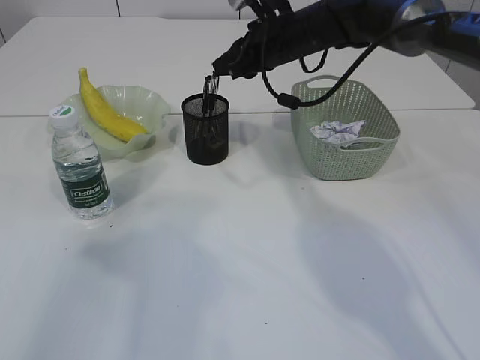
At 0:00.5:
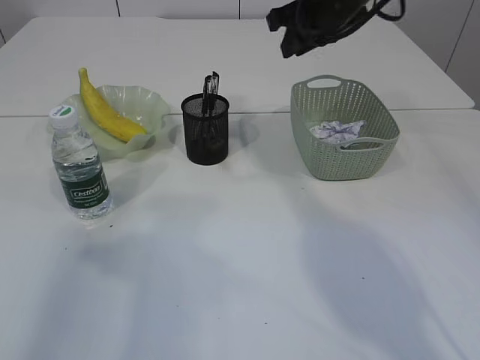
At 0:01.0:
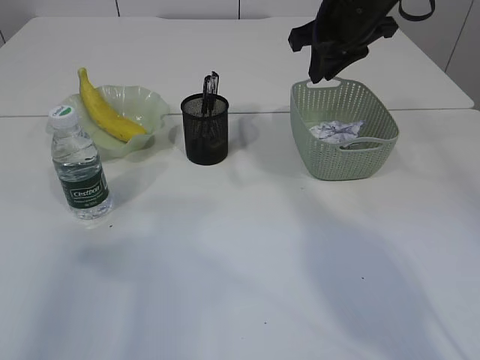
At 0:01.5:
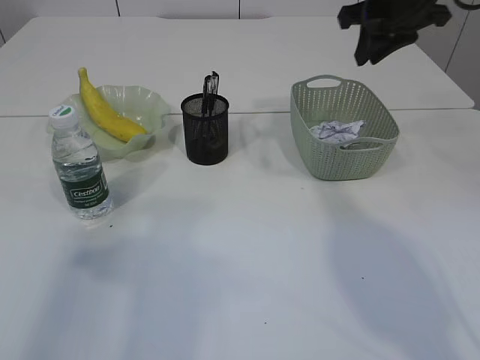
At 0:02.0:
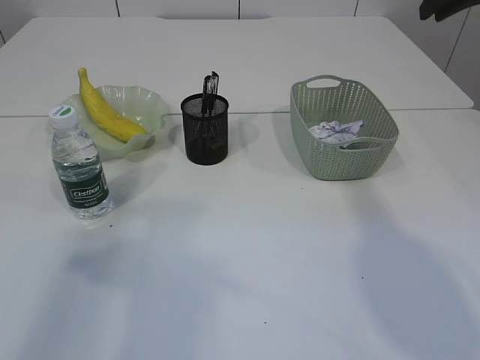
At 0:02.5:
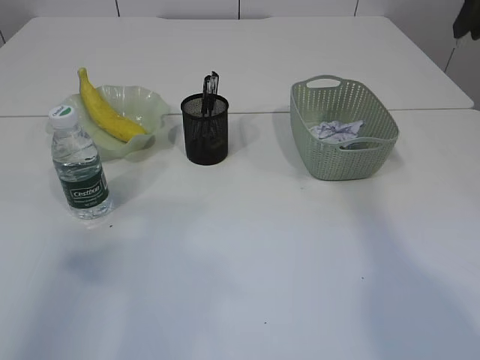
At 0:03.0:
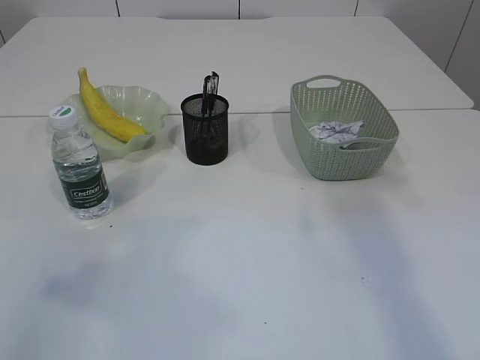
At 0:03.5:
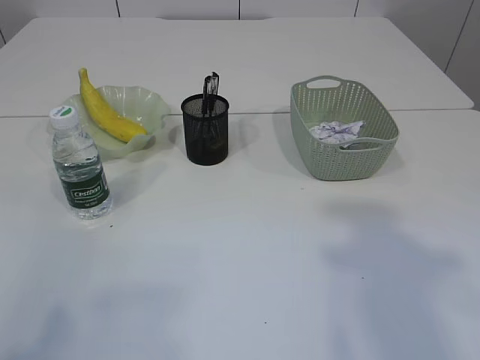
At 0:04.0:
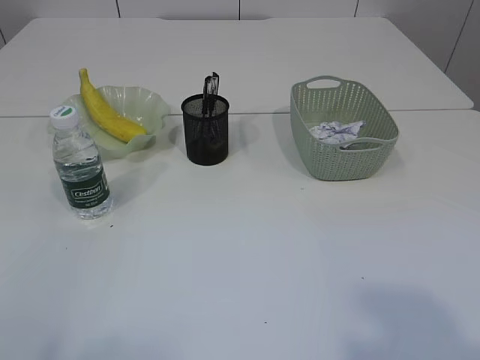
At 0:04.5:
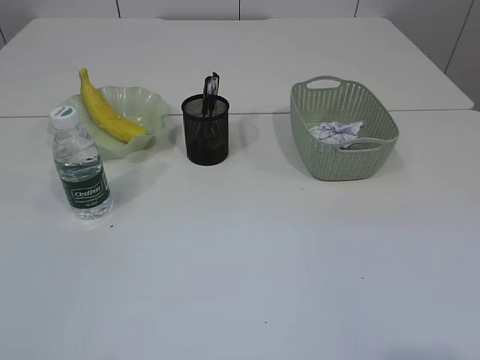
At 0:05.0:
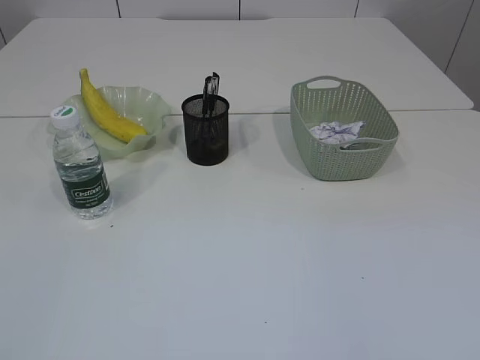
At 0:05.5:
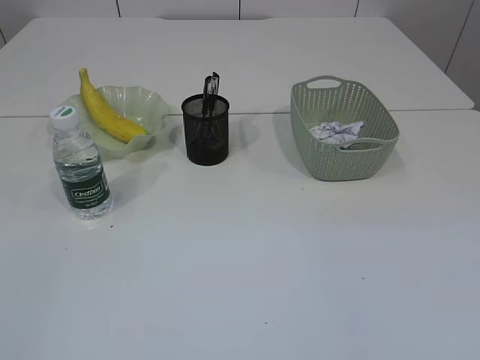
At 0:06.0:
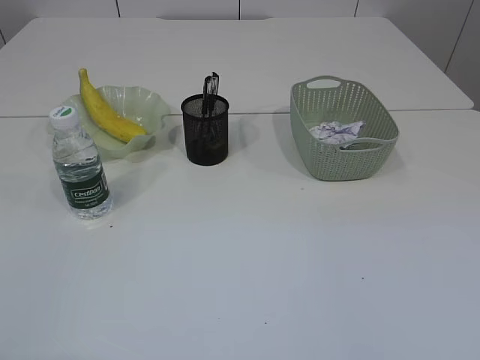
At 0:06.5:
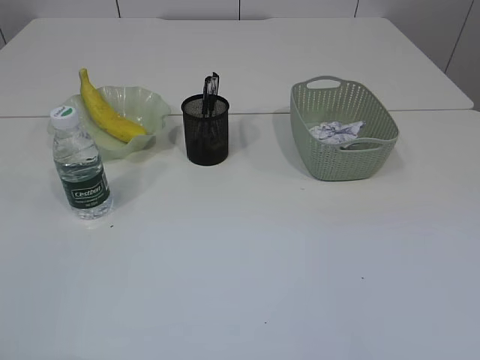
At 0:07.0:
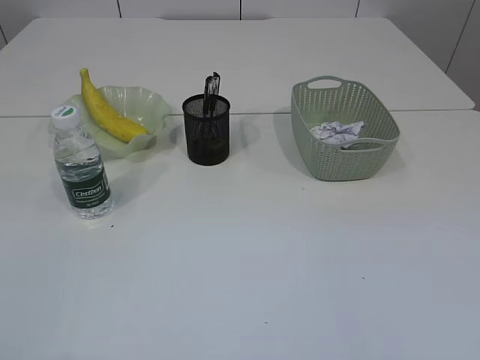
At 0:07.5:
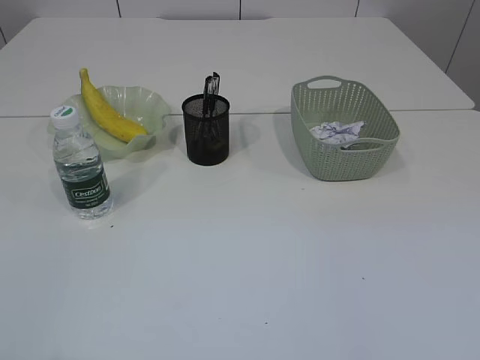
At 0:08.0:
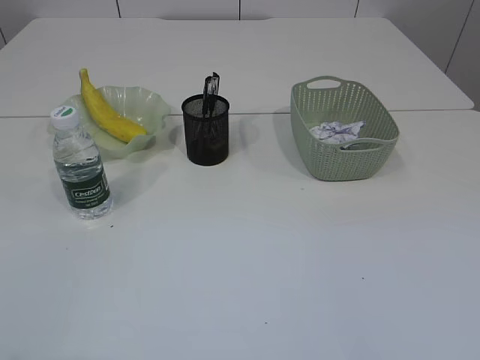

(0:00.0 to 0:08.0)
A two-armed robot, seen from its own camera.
0:00.0 - 0:02.0: The right gripper moves to the right and upward, about 25 cm.
0:02.0 - 0:04.0: The right gripper goes roughly 40 cm backward. The left gripper is displaced backward by some 20 cm.

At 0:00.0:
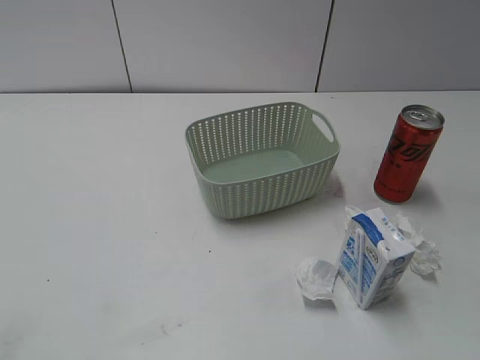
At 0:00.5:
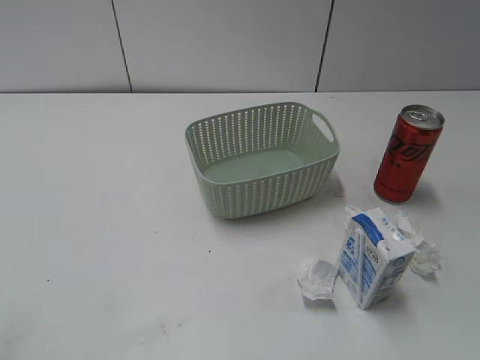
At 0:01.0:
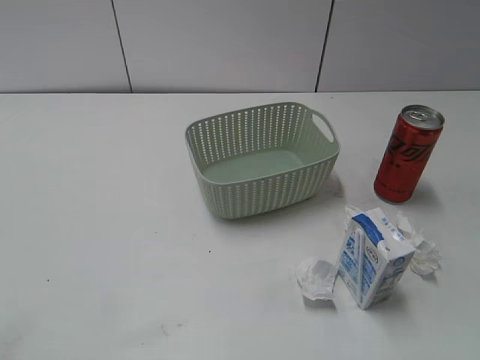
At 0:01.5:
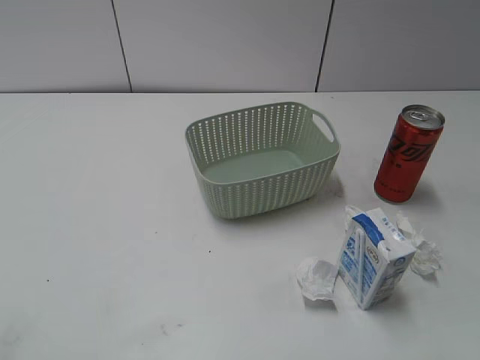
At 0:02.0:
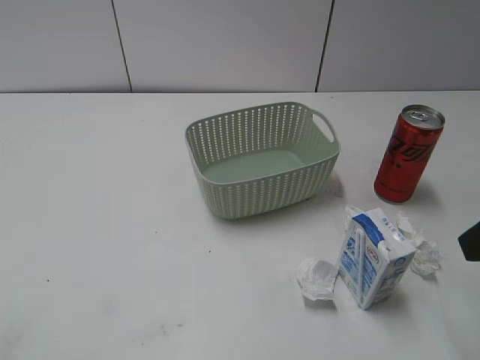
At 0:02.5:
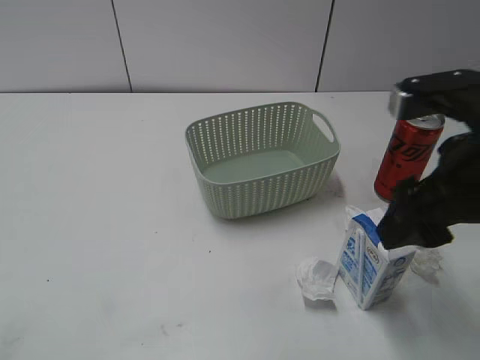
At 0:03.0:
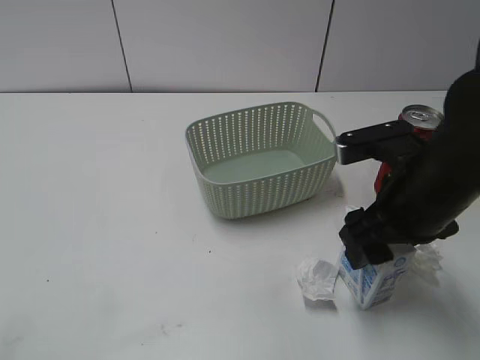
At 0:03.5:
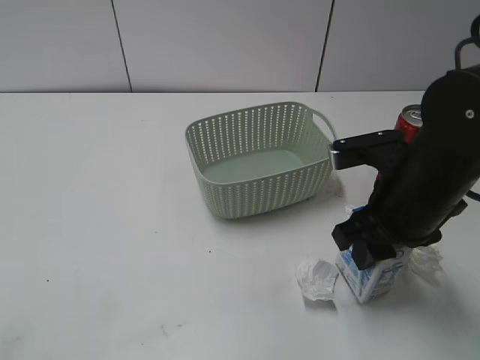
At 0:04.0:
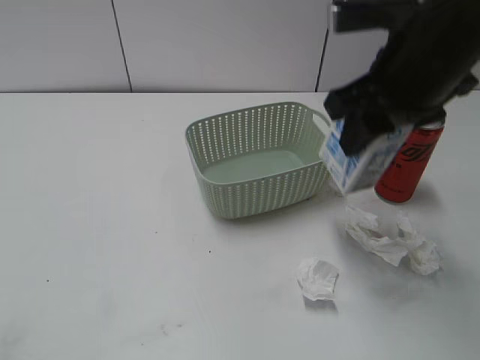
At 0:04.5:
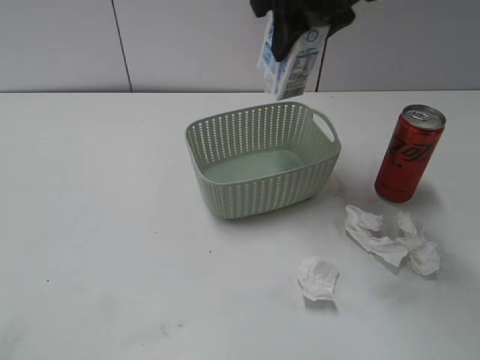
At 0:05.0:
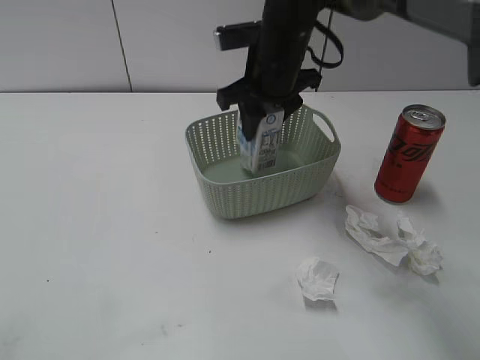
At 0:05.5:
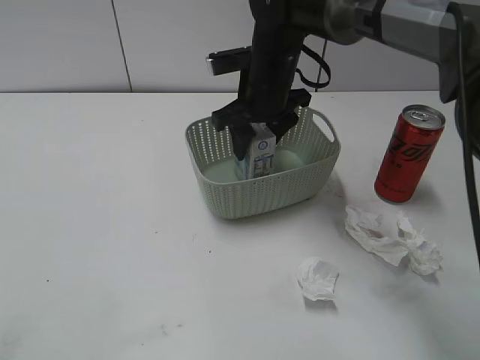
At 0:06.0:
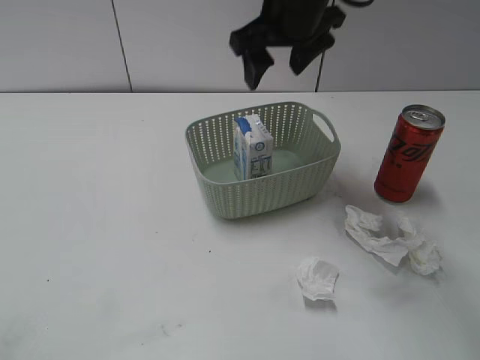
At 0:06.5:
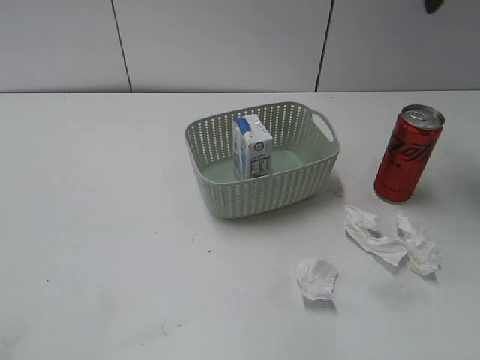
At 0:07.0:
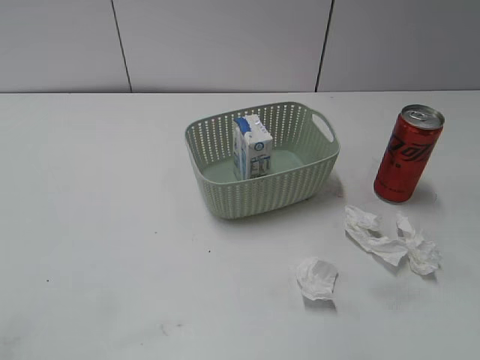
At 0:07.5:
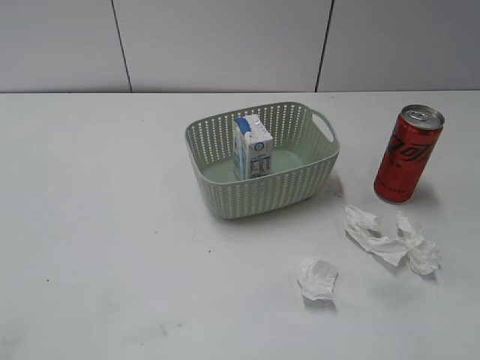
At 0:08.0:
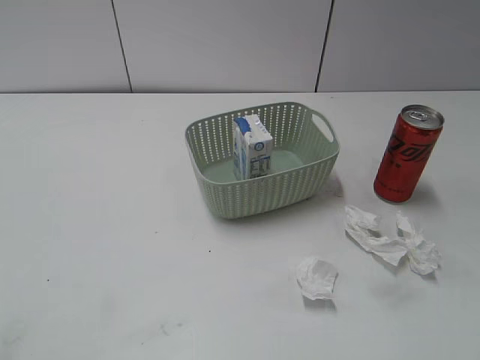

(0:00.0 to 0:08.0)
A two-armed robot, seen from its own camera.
Step, 0:02.0 - 0:03.0: Grasp the milk with right gripper.
Step, 0:03.5 - 0:06.0: Place the milk in the basket with right gripper.
0:02.0 - 0:04.0: The right gripper moves to the left and forward, about 15 cm, and closes up.
0:04.0 - 0:06.0: The right gripper swings up and down, some 15 cm each way, with 2 reversals, and opens up.
0:06.0 - 0:08.0: The right gripper shifts roughly 40 cm backward and to the right.

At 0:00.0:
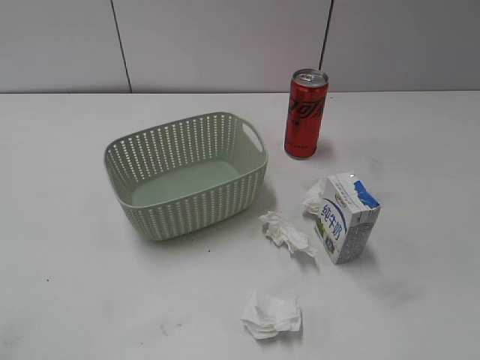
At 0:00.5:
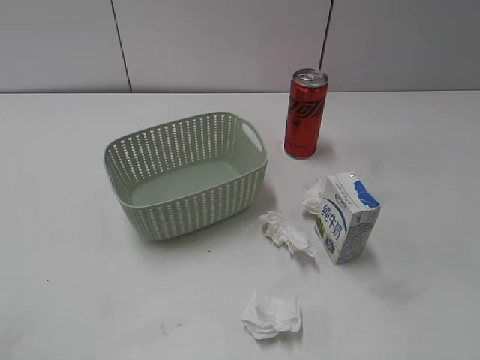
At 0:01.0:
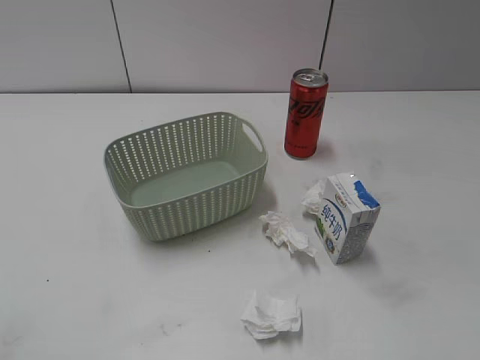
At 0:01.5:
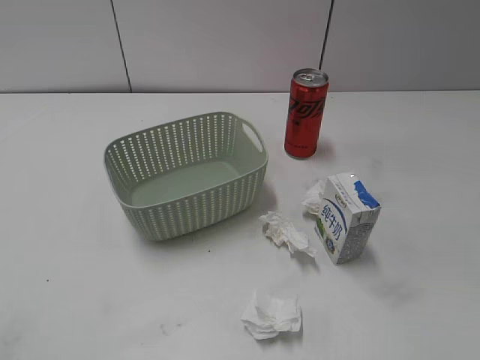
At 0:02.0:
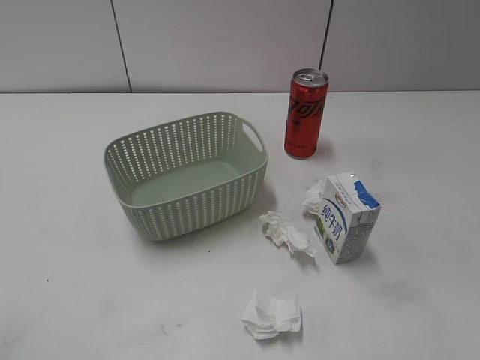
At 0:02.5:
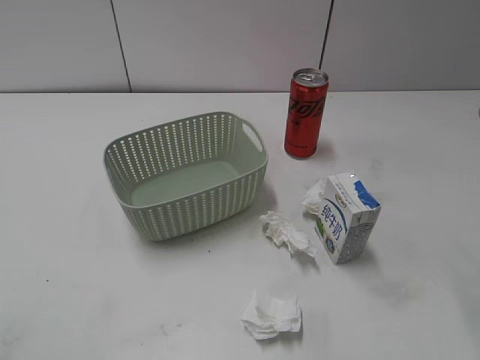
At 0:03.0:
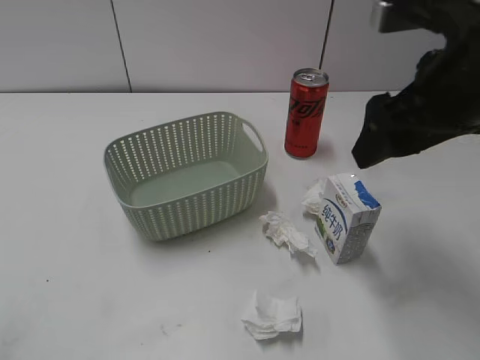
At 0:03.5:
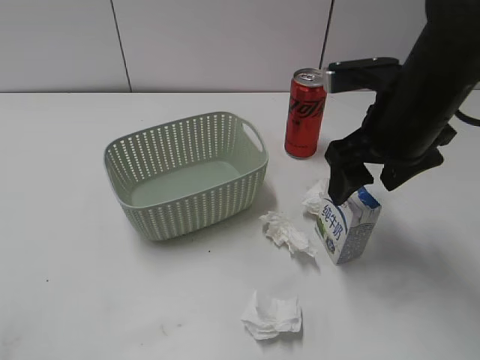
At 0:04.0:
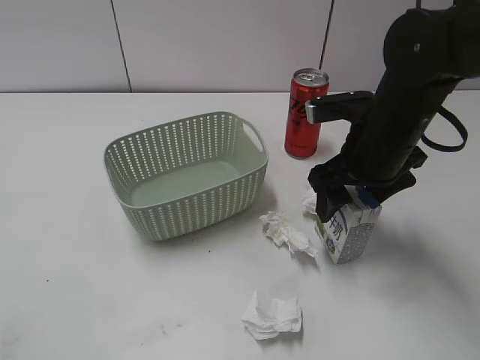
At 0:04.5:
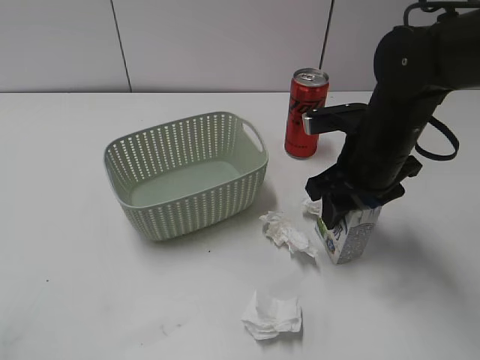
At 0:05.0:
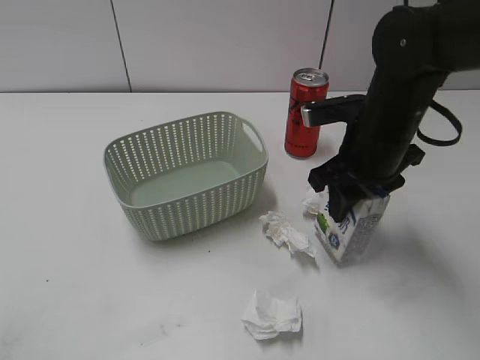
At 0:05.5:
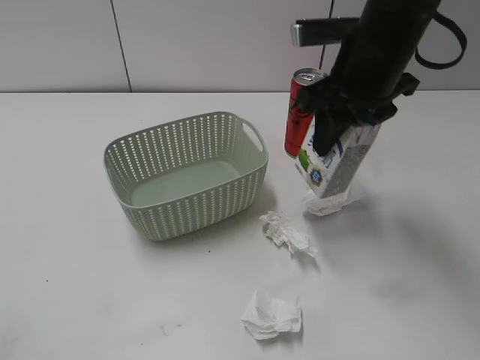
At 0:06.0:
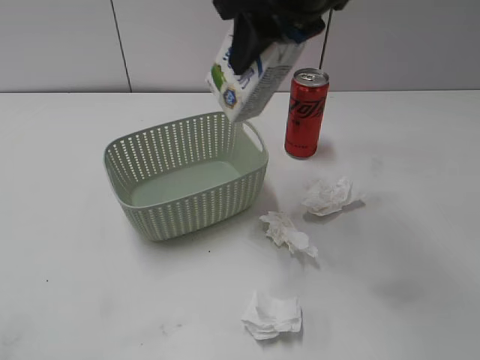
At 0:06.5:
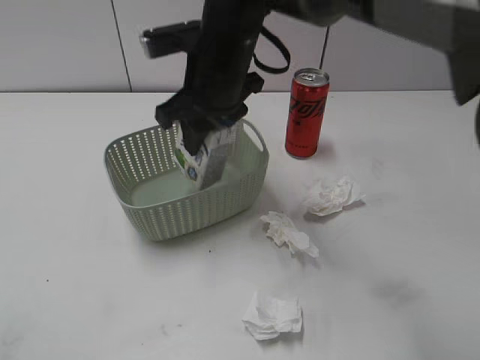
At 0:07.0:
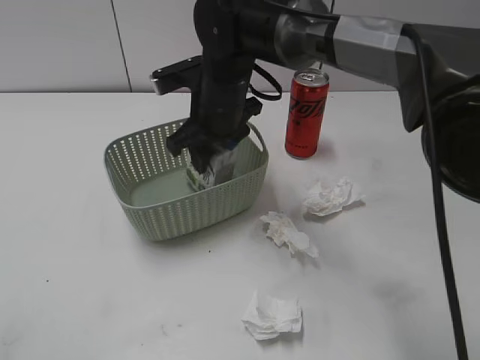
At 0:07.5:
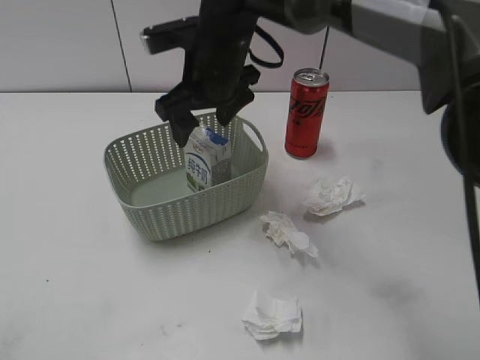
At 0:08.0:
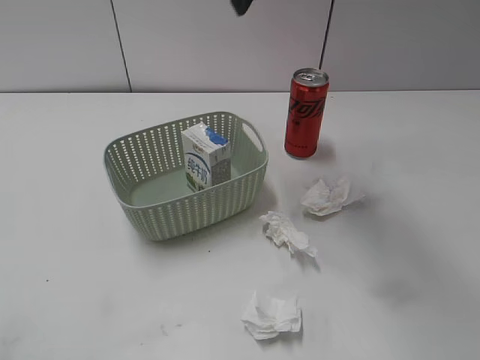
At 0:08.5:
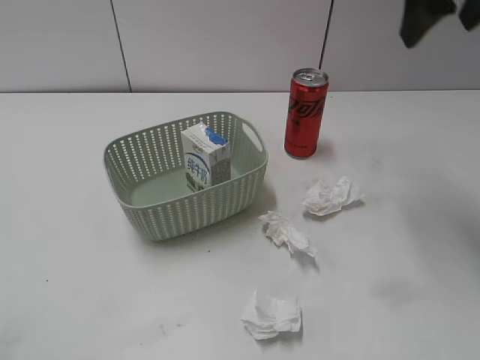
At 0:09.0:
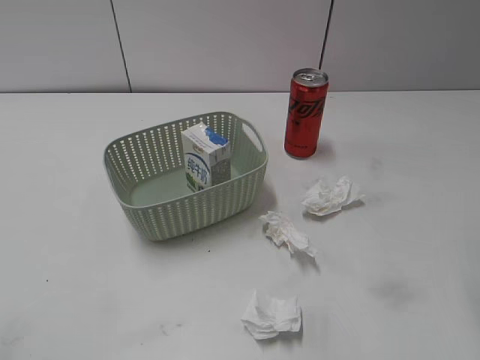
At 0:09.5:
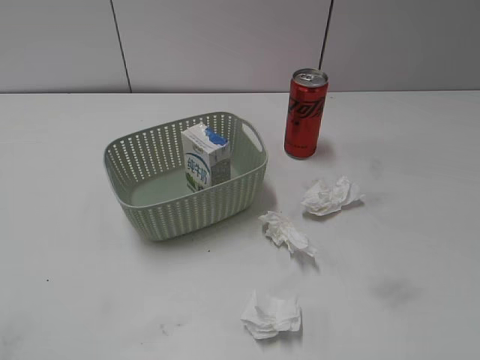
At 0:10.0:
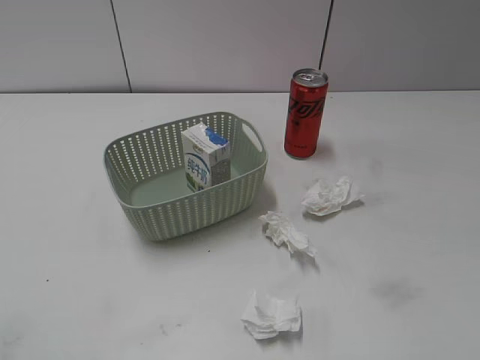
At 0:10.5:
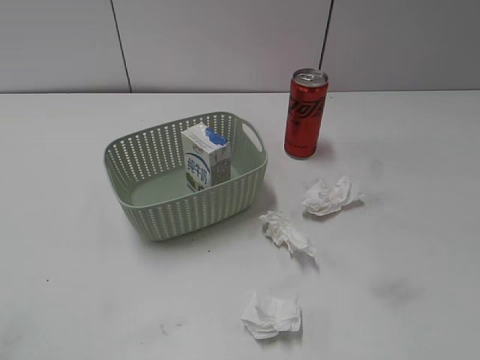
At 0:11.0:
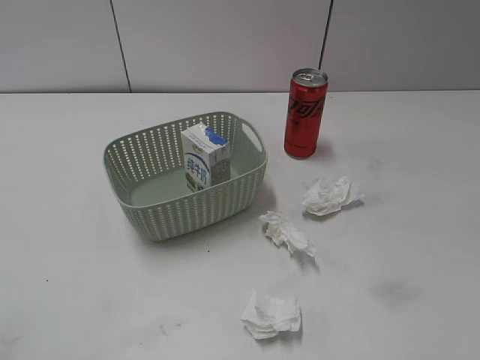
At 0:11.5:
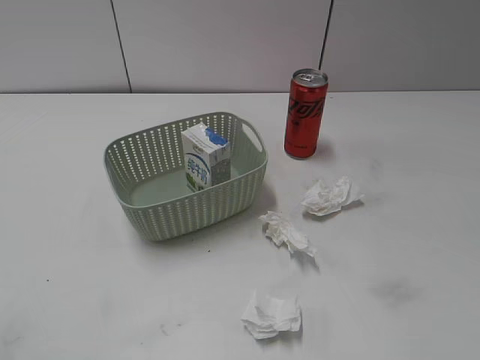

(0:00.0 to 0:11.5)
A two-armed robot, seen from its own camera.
Step, 0:03.0 - 0:04.5: Grasp the milk with right gripper.
Step, 0:05.0 - 0:07.5: Place the milk in the basket with right gripper.
0:02.0 - 0:04.0: The right gripper heads forward, to the left and downward, covering some 30 cm.
0:04.0 - 0:06.0: The right gripper is displaced upward and to the left by approximately 20 cm, and closes.
0:06.0 - 0:07.5: The right gripper is displaced downward and to the left by approximately 15 cm, and opens its fingers.
0:07.5 - 0:09.5: The right gripper goes roughly 40 cm to the right and backward.
